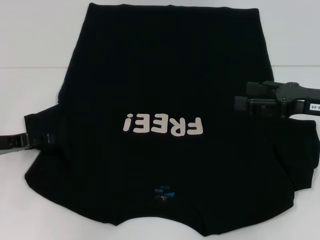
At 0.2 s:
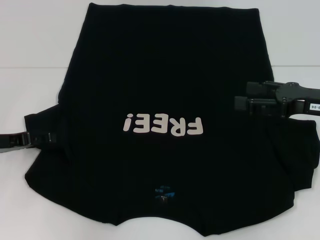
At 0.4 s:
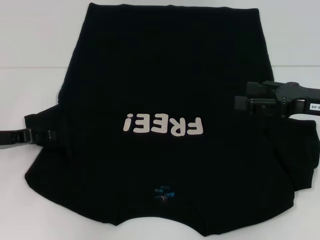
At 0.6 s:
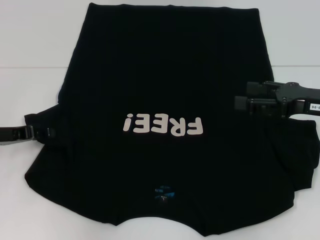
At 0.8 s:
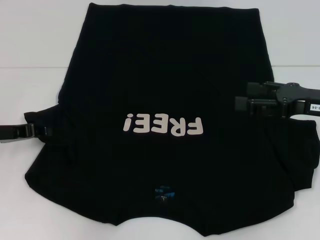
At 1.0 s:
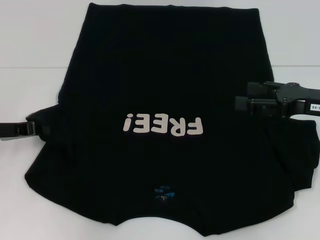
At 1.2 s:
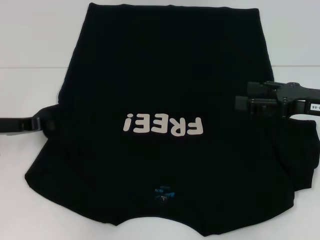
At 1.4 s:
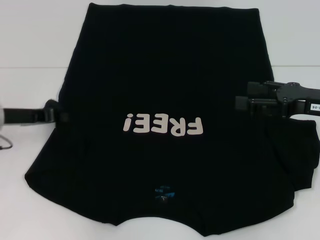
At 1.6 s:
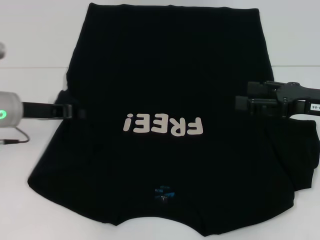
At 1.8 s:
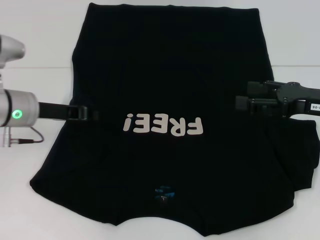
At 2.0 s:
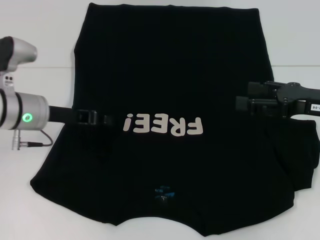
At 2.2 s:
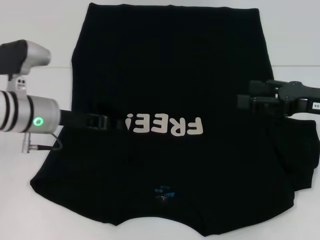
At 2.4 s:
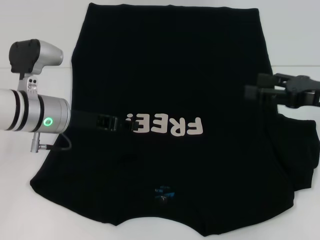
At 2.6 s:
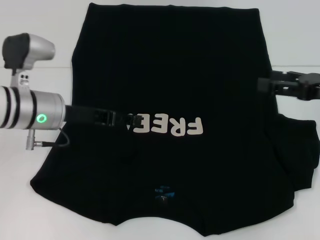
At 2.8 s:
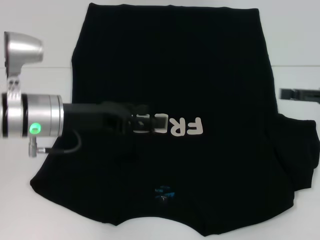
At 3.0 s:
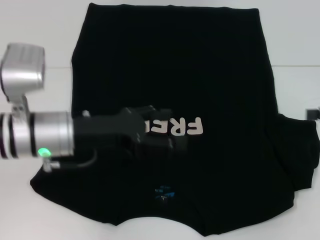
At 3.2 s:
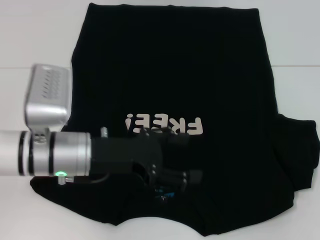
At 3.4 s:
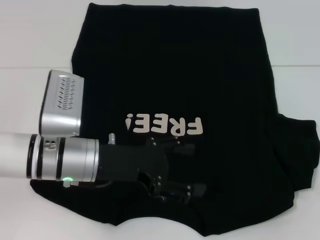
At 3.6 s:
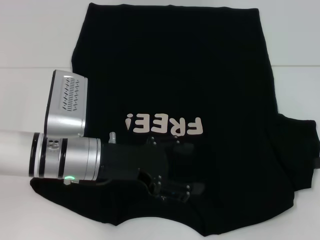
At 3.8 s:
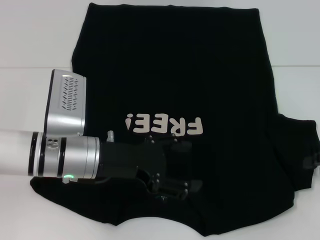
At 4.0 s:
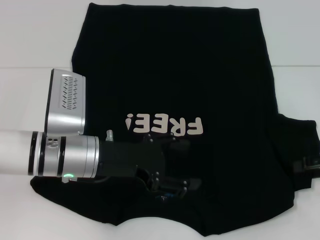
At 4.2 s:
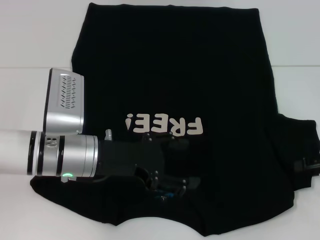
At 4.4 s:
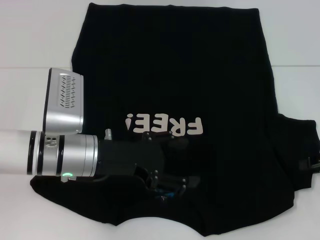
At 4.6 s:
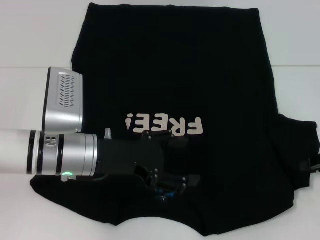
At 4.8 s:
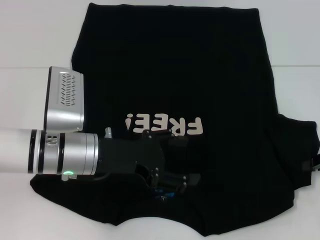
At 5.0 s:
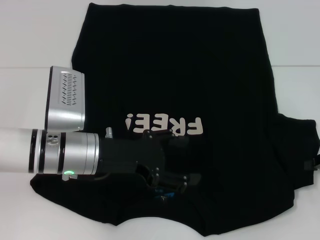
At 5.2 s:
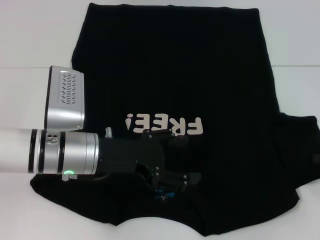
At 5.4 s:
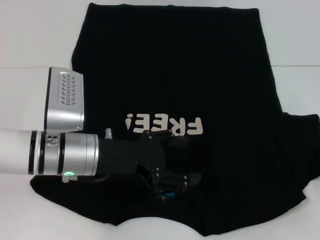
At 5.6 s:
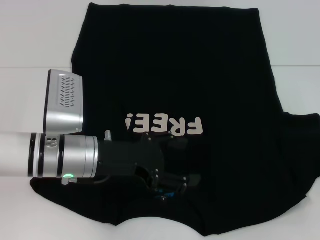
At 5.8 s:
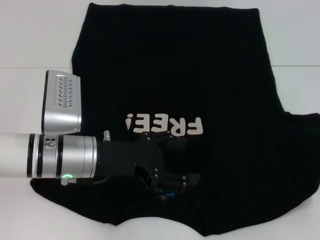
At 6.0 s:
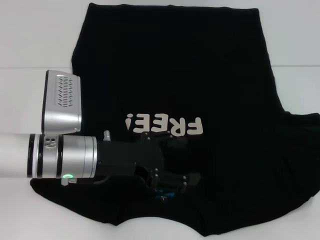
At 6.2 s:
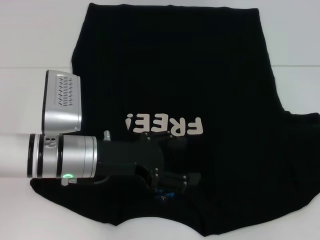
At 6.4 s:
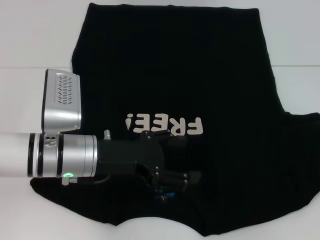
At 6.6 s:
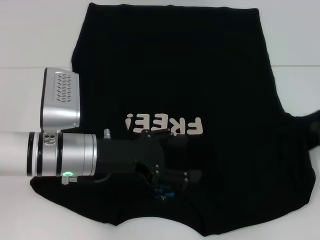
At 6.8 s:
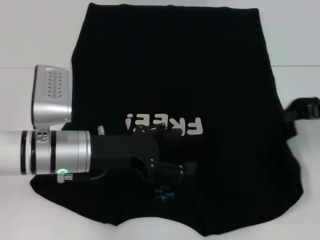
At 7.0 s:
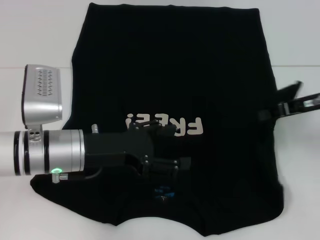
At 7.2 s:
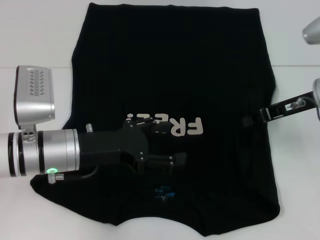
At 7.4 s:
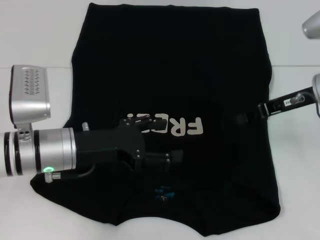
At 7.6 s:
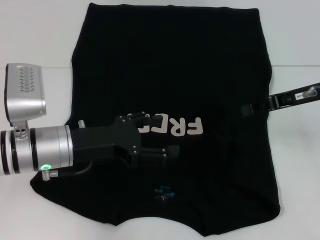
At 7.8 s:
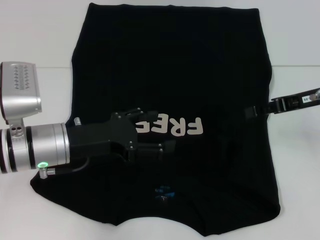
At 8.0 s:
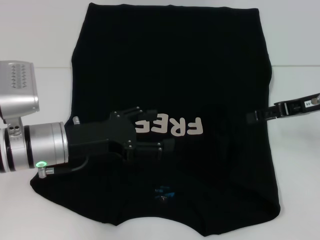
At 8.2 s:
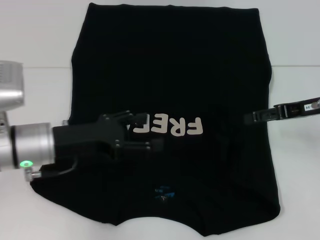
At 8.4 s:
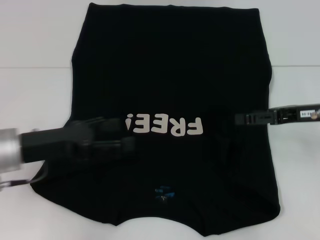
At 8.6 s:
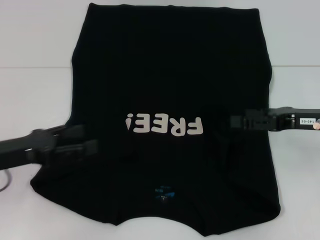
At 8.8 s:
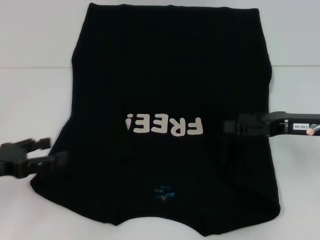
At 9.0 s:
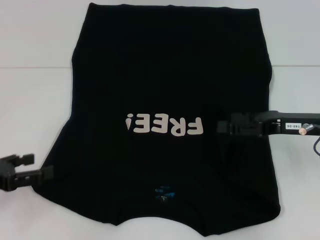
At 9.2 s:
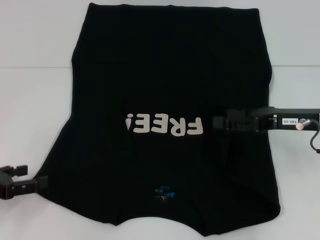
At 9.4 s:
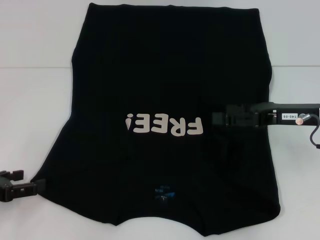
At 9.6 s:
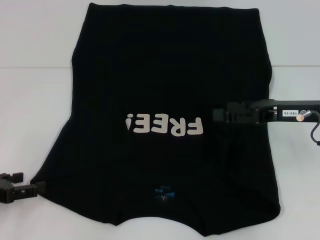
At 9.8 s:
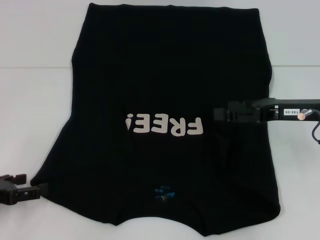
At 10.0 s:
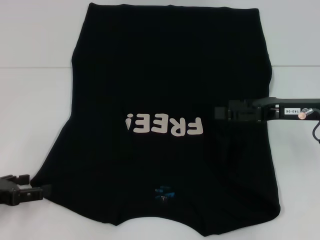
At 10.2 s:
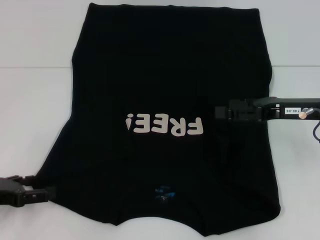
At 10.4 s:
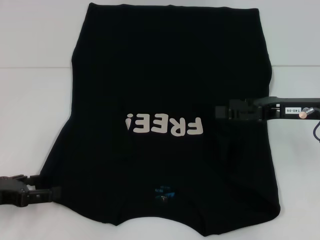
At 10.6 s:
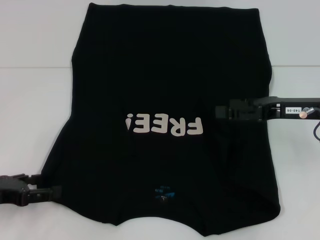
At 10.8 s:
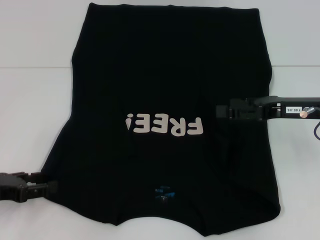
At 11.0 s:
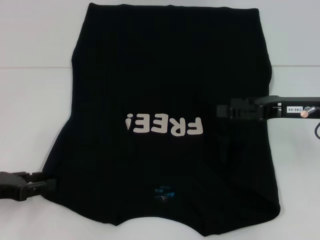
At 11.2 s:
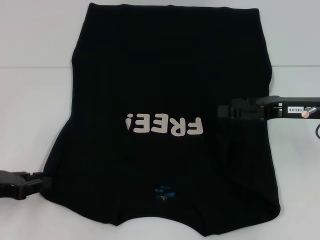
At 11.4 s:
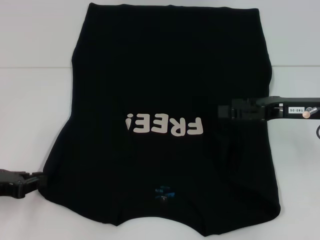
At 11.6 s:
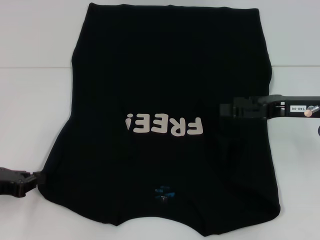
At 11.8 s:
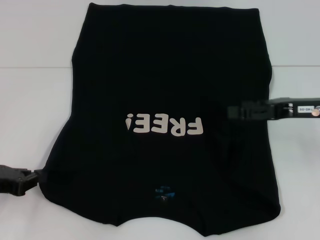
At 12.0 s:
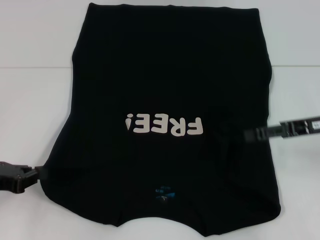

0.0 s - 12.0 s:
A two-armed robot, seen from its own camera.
Step, 0.0 s - 2.4 s: Fold the bottom left sleeve with your left hand.
Step, 2.6 s - 7.6 s: Fold the bottom right sleeve with your right hand.
Step, 7.8 s - 12.0 s: Grab the bottom left corner with your left hand.
0.0 s - 1.6 s: The left gripper shifts roughly 5 cm to the right, and closes its fingers.
1.6 s - 3.0 s: The right gripper shifts about 10 cm to the right. The left gripper travels to the right and backward by about 10 cm, and opens up.
3.0 s - 4.4 s: The right gripper travels downward by some 5 cm, and closes up.
4.4 s - 6.0 s: The right gripper closes its fingers.
6.0 s - 7.6 s: The right gripper goes approximately 15 cm to the left and forward.
7.6 s - 9.0 s: The left gripper shifts some 15 cm to the left, while the right gripper ends up roughly 5 cm from where it was, and opens.
9.0 s - 10.4 s: The grippers move only a little.
10.4 s - 12.0 s: The left gripper closes its fingers.

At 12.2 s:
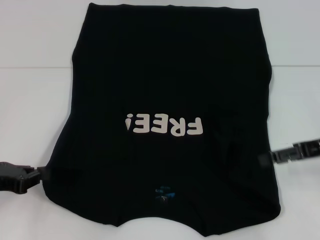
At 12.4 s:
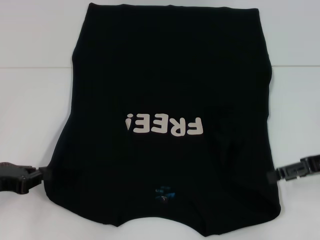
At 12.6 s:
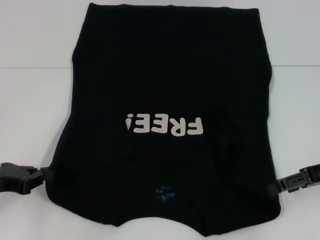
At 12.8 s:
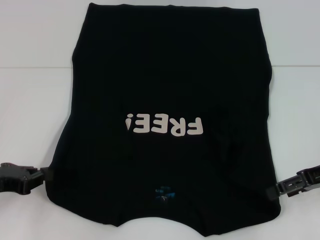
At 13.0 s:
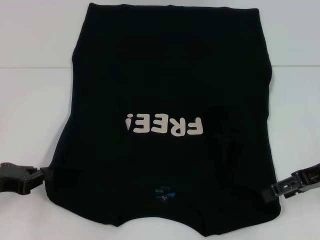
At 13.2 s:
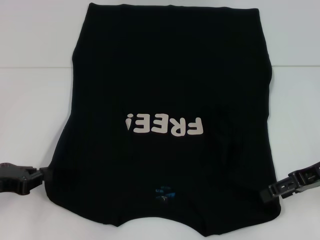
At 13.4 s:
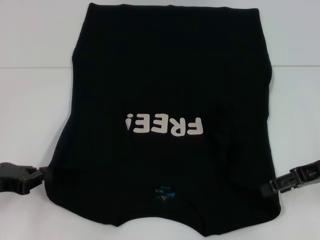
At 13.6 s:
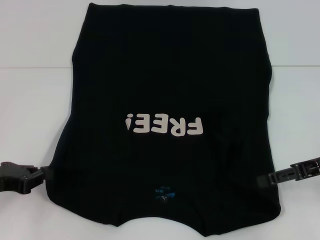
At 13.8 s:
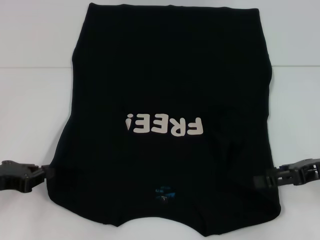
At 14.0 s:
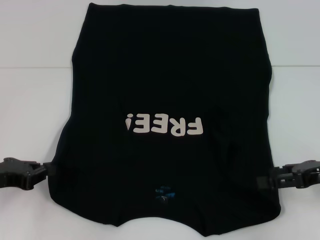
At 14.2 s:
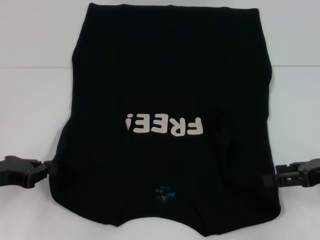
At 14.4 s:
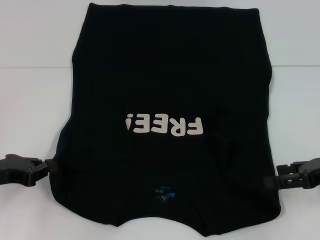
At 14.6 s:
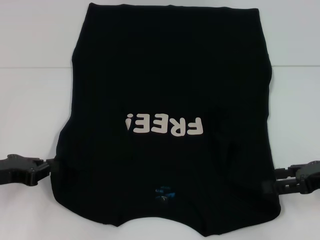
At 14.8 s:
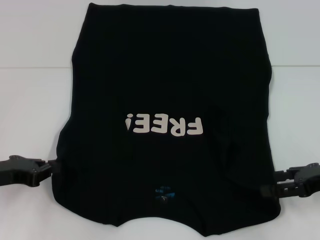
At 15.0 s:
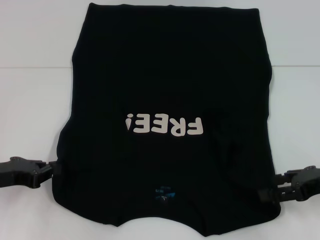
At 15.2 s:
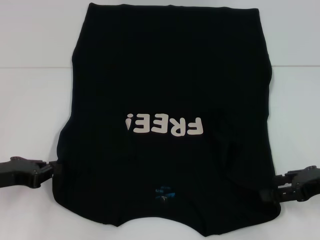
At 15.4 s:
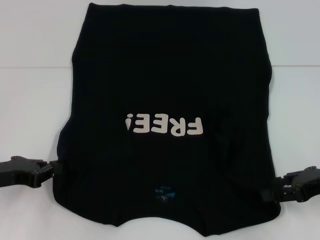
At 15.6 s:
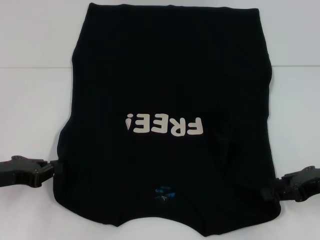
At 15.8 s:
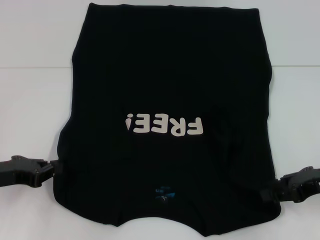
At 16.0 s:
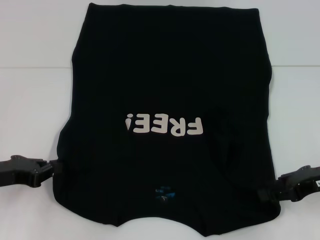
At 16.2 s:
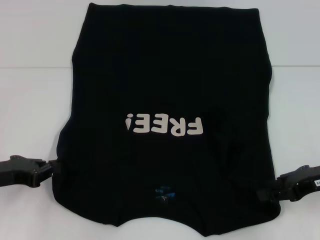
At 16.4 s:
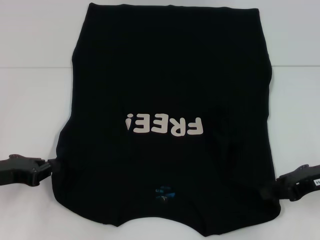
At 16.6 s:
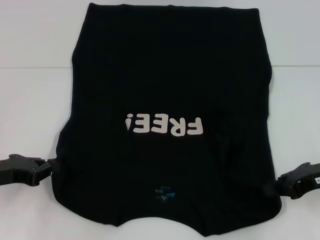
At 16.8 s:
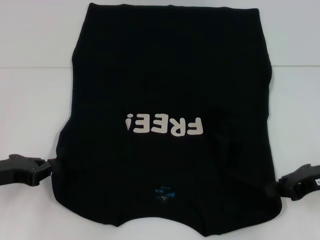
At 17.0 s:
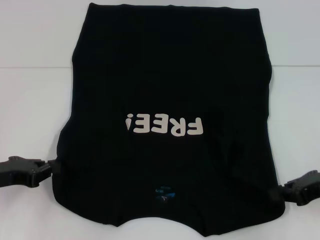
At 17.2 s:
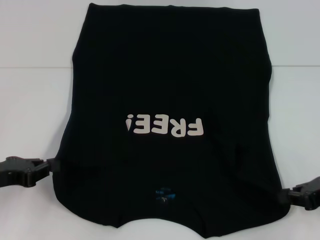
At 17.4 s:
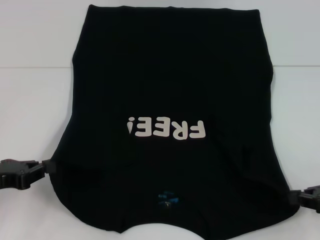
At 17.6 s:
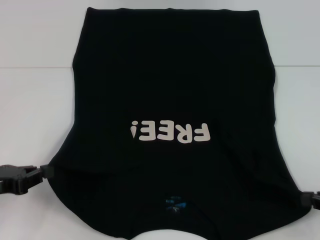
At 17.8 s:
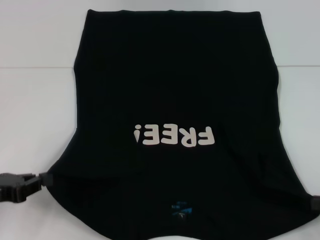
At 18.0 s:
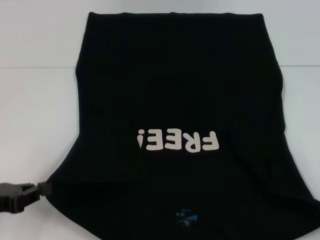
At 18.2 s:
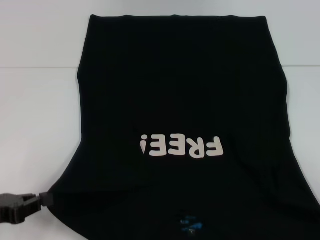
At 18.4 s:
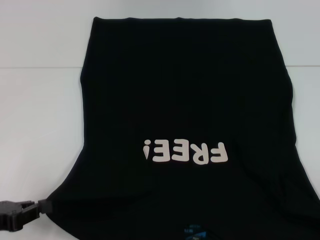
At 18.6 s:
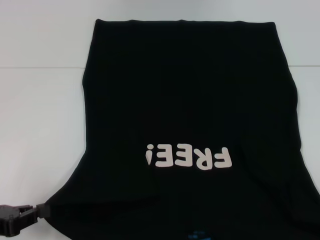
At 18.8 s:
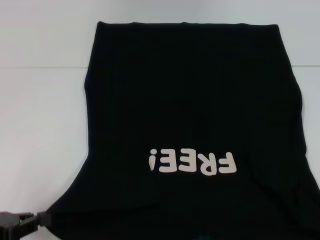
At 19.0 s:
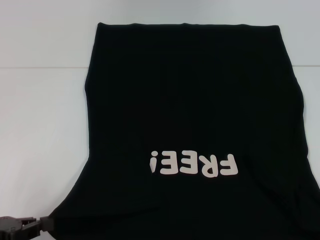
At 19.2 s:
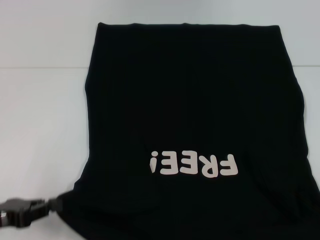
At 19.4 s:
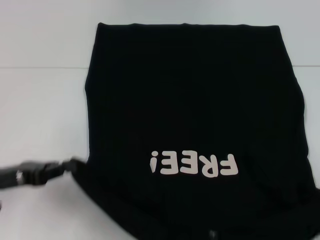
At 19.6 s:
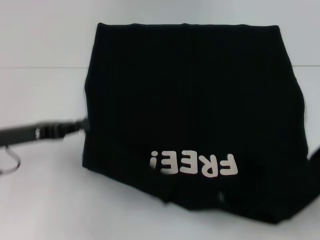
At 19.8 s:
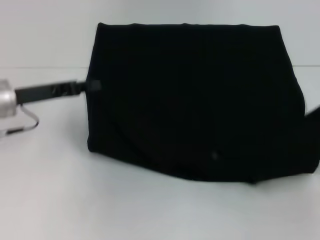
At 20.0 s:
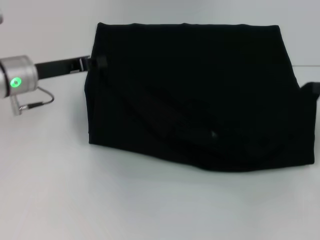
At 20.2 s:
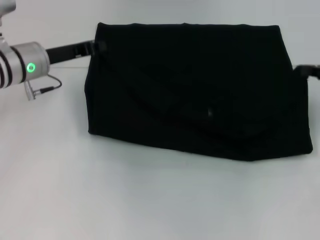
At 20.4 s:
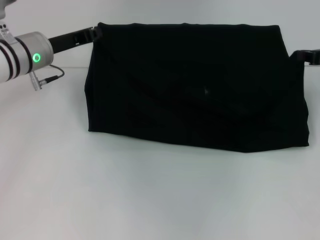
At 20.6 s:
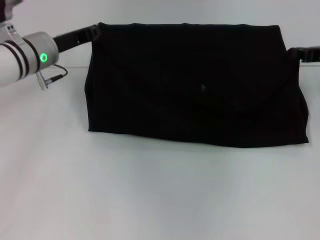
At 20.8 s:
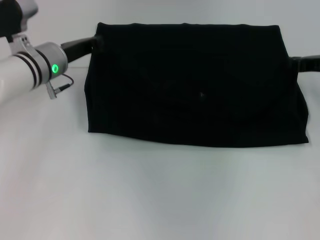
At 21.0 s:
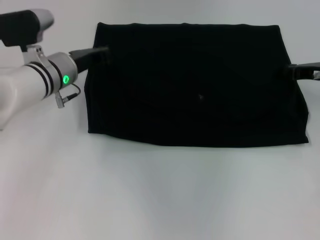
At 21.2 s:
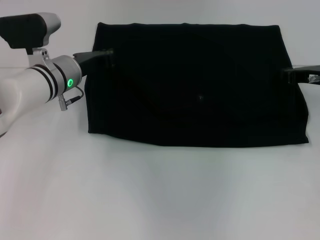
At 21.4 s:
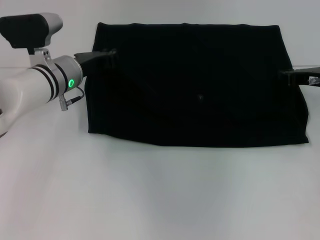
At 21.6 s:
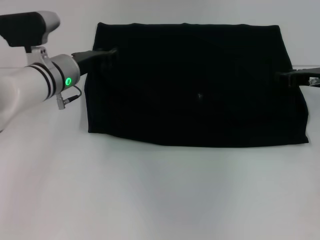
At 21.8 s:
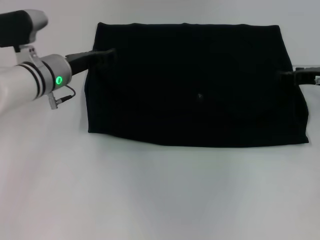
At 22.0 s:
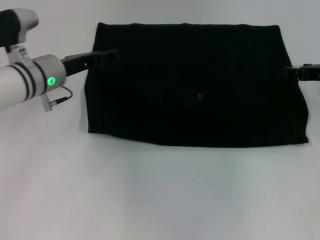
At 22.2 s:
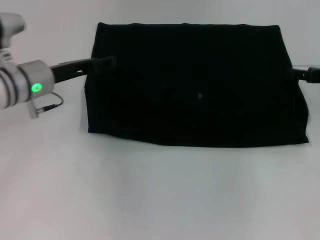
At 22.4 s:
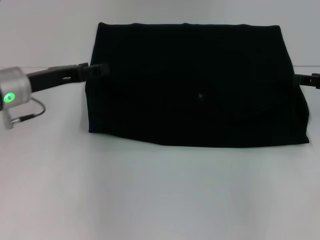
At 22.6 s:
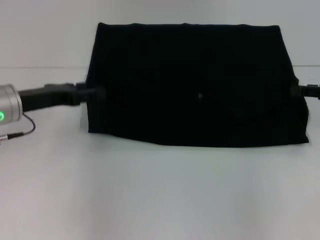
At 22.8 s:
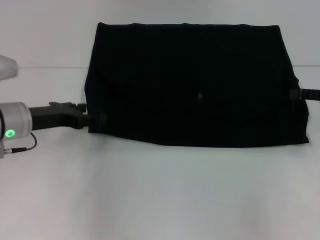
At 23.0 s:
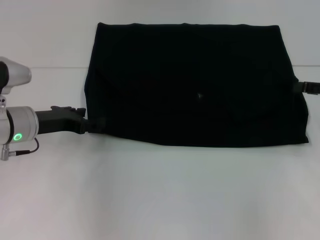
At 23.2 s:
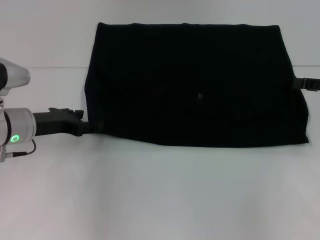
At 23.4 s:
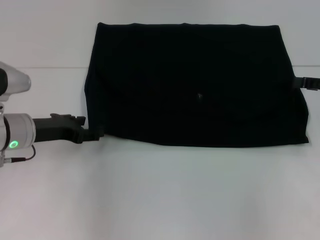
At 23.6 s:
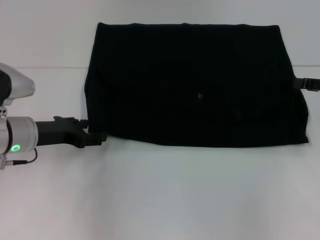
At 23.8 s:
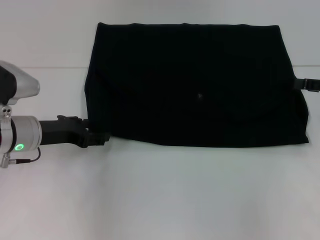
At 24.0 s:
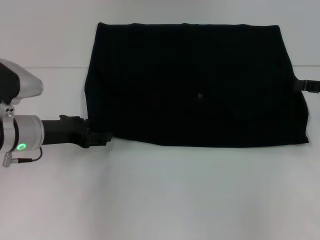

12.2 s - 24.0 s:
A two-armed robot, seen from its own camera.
Step, 12.2 s - 17.0 s: Grab the bottom right corner with your right hand.
Step, 17.2 s - 21.8 s: Fold the clothes with your left hand.
Step, 17.2 s - 21.8 s: Fold the clothes with your right hand.
12.2 s - 15.2 s: There are only small adjustments of the grippers.
15.2 s - 16.6 s: The right gripper closes.
16.6 s - 18.2 s: The right gripper is displaced backward and to the right by some 15 cm; the left gripper goes roughly 5 cm backward.
18.2 s - 19.6 s: The left gripper heads forward, covering roughly 10 cm, while the right gripper shifts some 5 cm forward.
19.6 s - 21.0 s: The right gripper moves forward and to the left, some 20 cm; the left gripper goes approximately 15 cm forward and to the right.
21.0 s - 22.6 s: The right gripper travels backward by roughly 5 cm, and opens up. The left gripper moves to the left and backward, some 10 cm, and opens up.